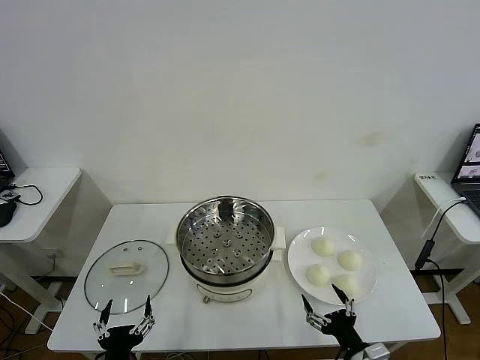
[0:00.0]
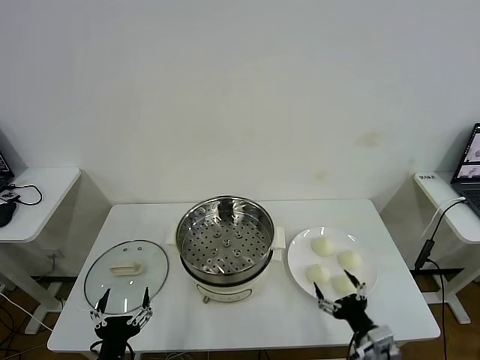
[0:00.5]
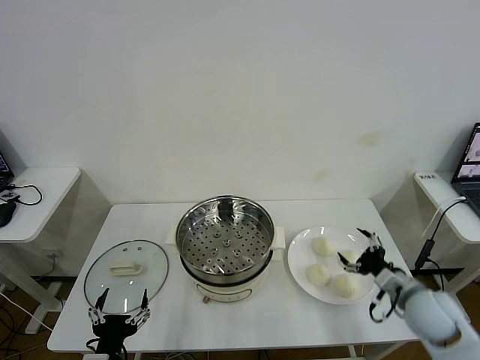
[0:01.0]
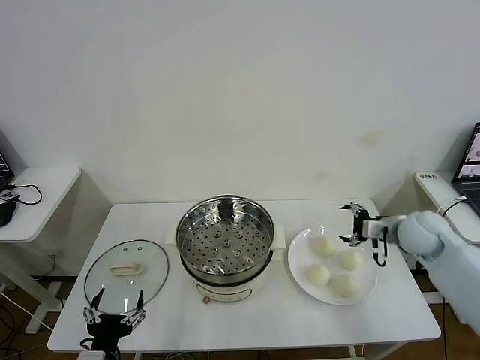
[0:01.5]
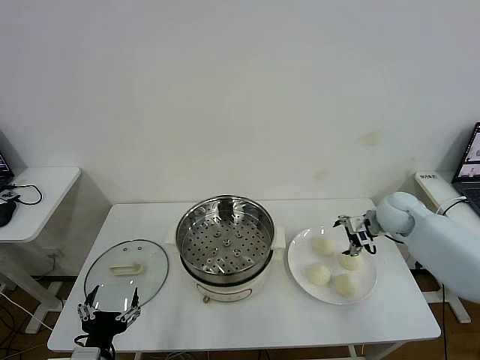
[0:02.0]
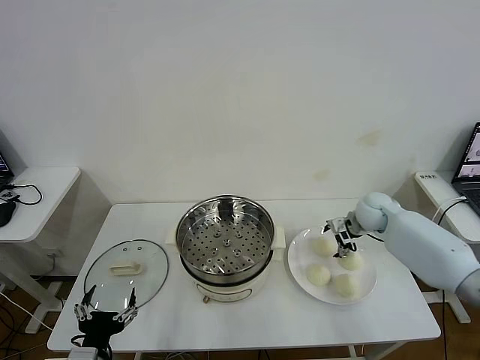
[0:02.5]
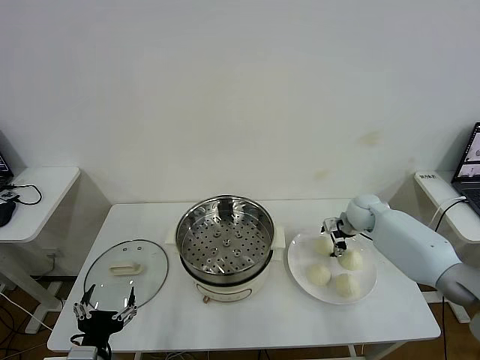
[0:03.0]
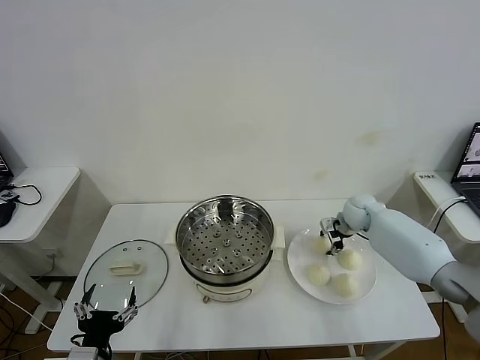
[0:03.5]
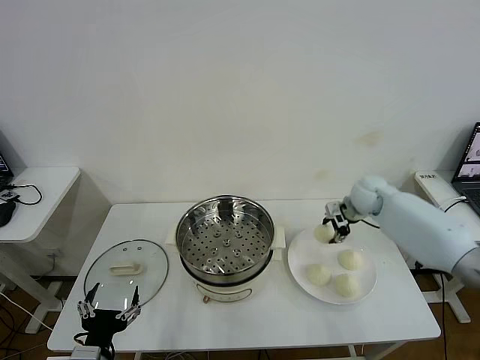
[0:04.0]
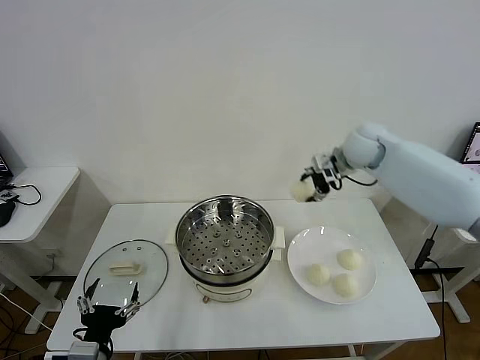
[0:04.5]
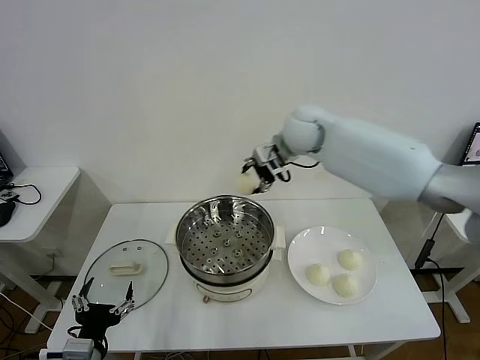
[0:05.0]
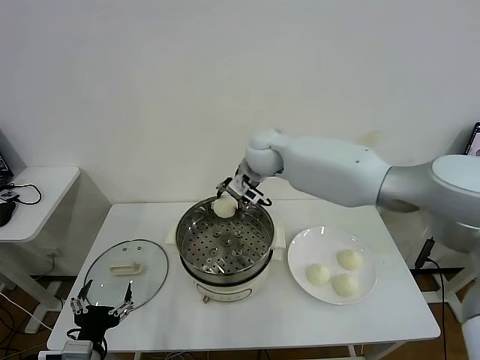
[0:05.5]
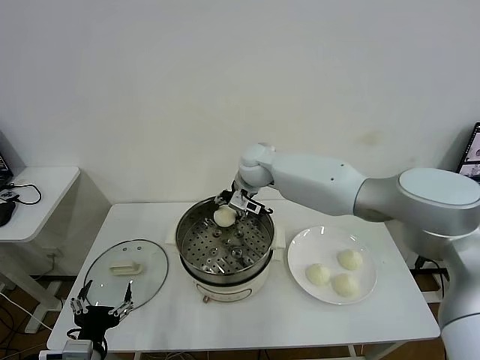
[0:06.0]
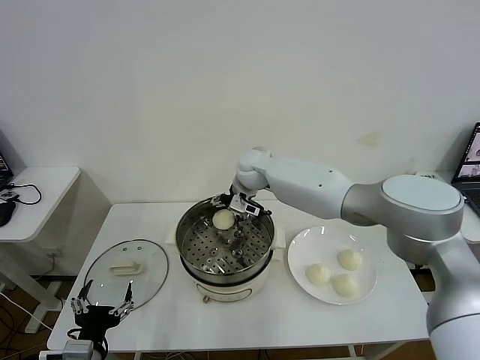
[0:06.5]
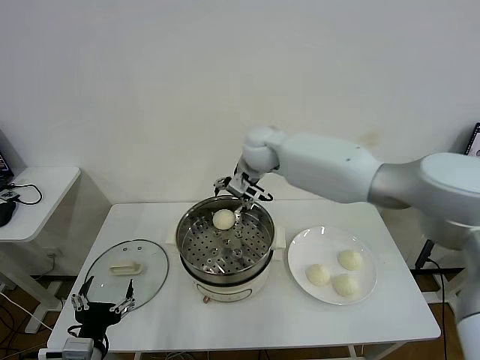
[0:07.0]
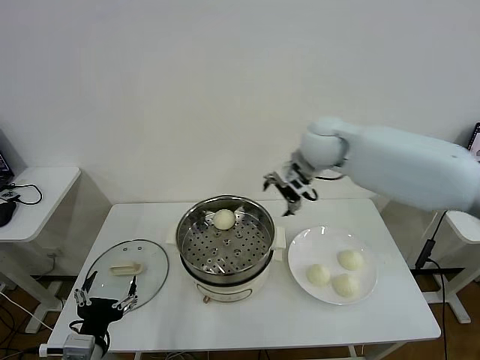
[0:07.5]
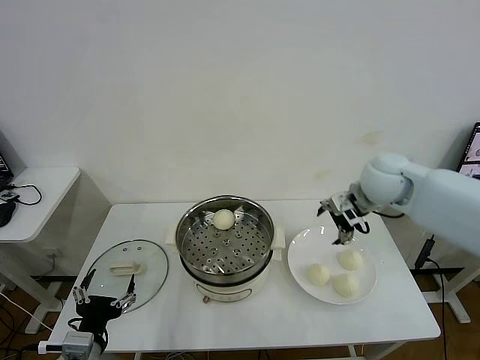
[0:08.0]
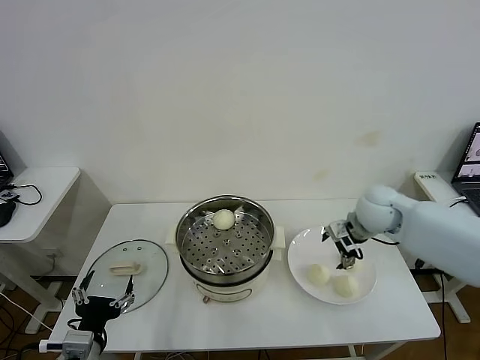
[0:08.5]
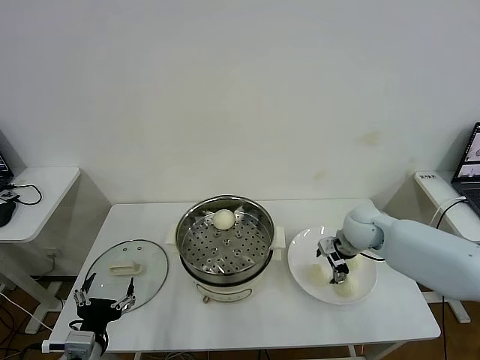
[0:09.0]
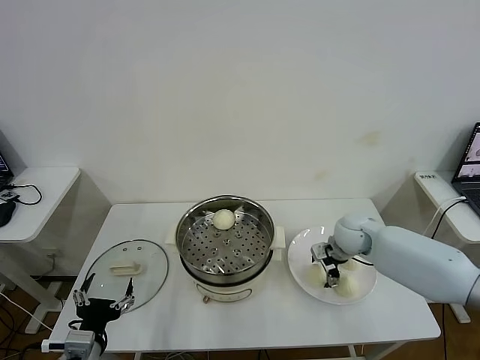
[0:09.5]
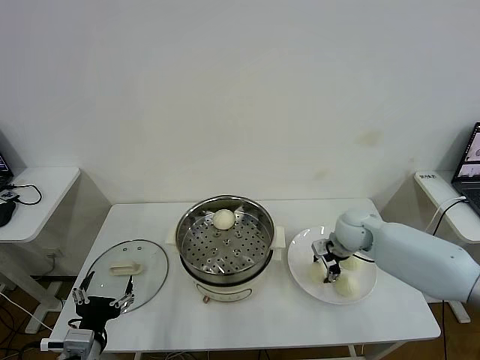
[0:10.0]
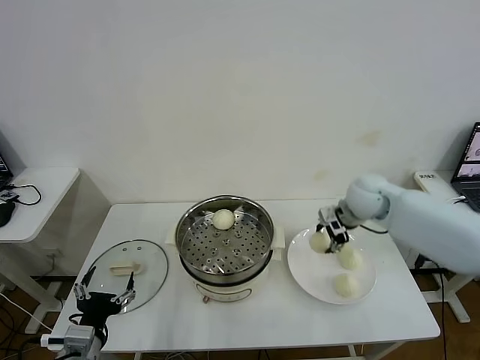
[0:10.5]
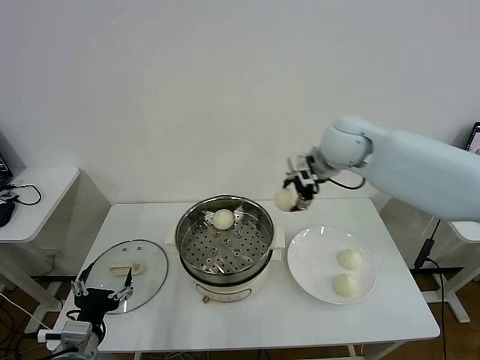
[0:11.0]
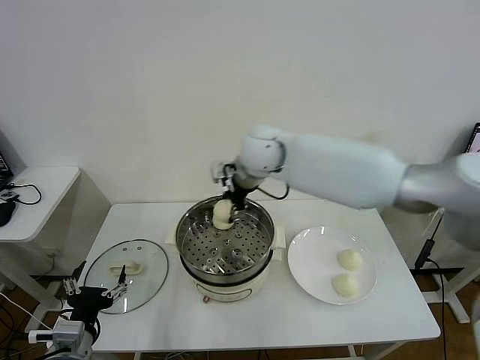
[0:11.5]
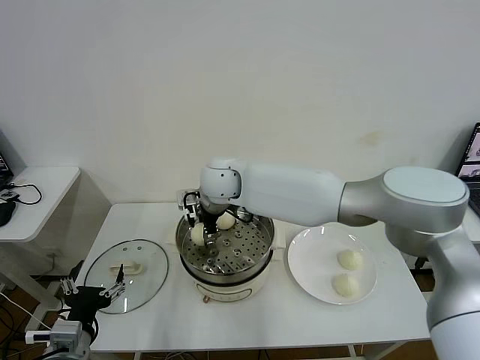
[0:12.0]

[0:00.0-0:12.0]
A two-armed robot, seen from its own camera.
Task of the whole recording: take steamed baozi put them in steamer then cover it.
Step, 0:00.0 to 0:03.5: Grasp the baozi in the plate with right gripper.
Step, 0:04.0 to 0:06.5: Place the baozi on the steamer with right gripper.
Step, 0:07.0 to 0:09.5: Grasp the baozi in the plate with right gripper.
0:02.0 to 0:04.0: The right gripper goes approximately 10 cm upward and forward, and closes.
0:04.0 to 0:06.0: The right gripper is displaced to the left by some 30 cm.
0:06.0 to 0:08.0: The right gripper travels to the right and backward by about 30 cm, and opens.
0:08.0 to 0:10.0: The right gripper shifts about 15 cm downward, and closes its fingers.
0:10.0 to 0:12.0: The right gripper travels to the left by approximately 35 cm.

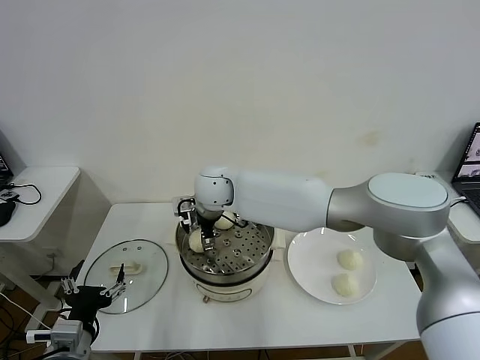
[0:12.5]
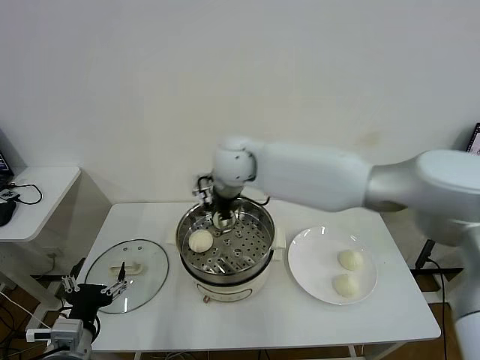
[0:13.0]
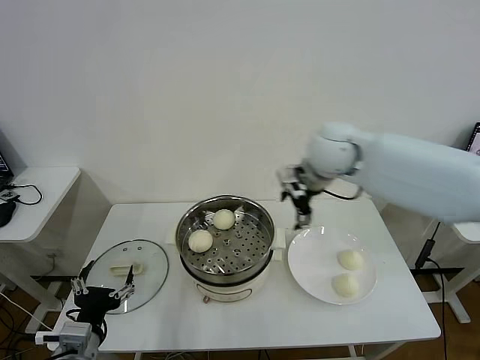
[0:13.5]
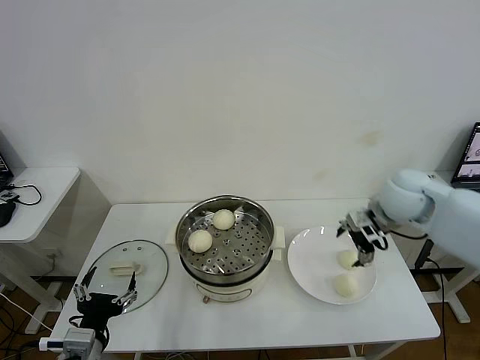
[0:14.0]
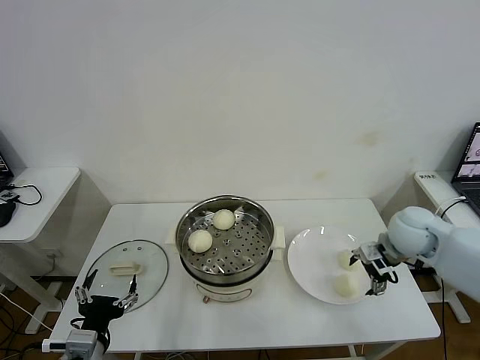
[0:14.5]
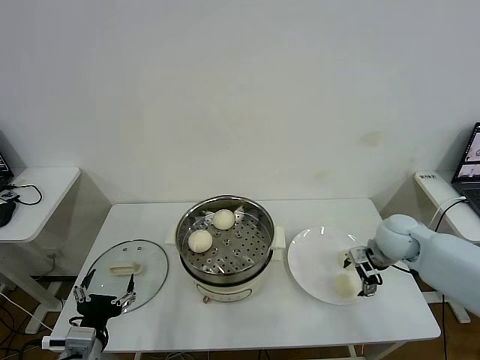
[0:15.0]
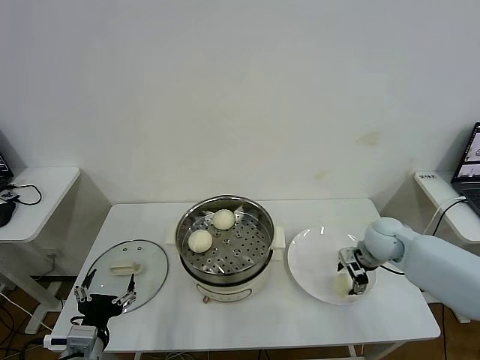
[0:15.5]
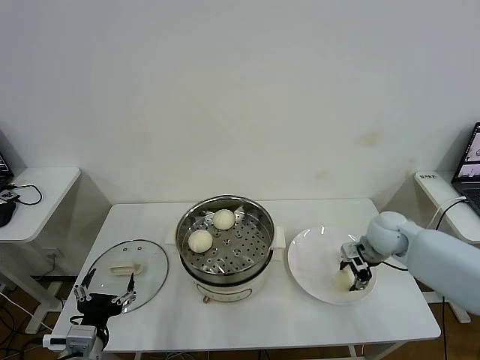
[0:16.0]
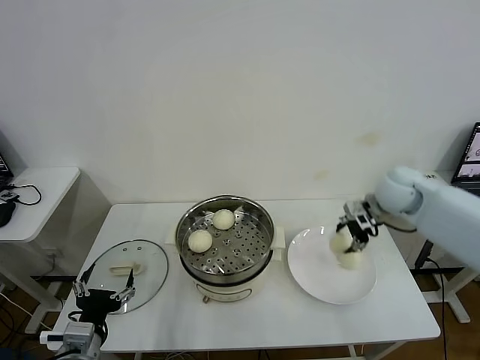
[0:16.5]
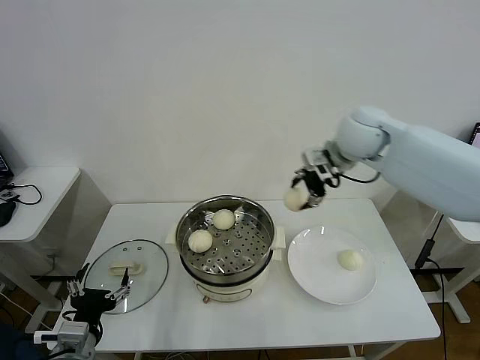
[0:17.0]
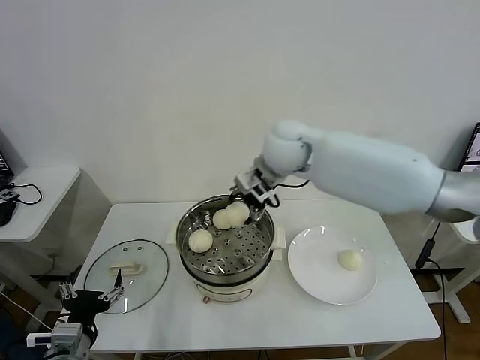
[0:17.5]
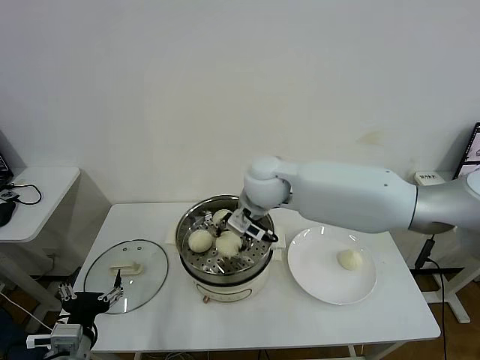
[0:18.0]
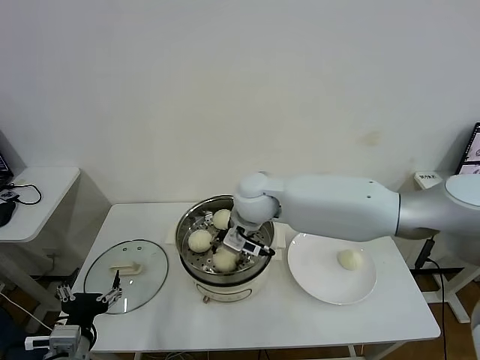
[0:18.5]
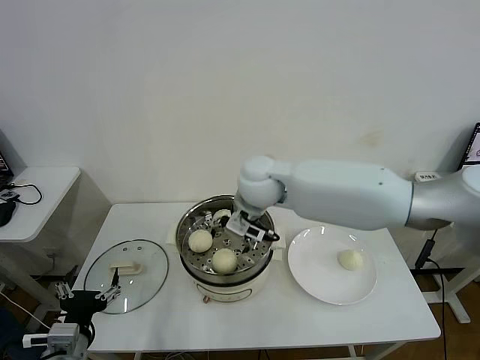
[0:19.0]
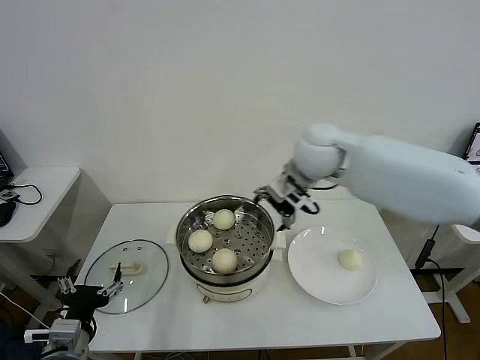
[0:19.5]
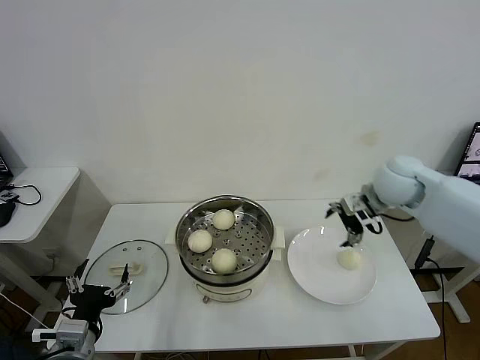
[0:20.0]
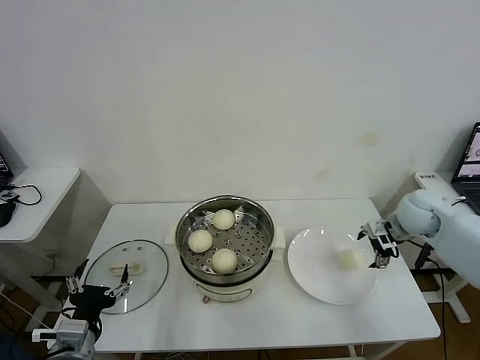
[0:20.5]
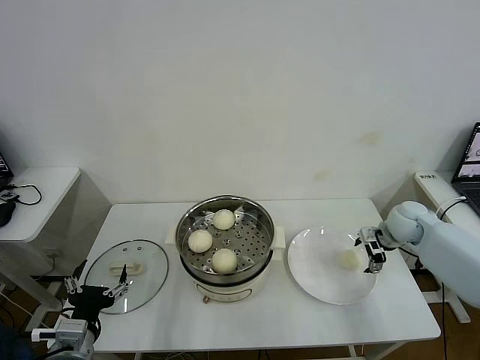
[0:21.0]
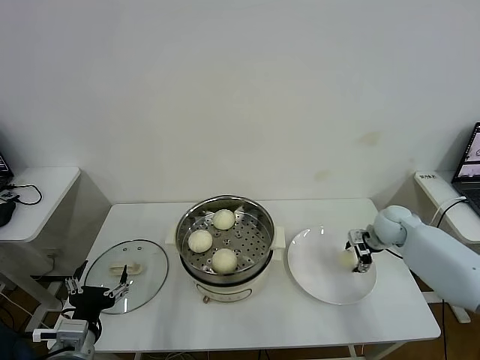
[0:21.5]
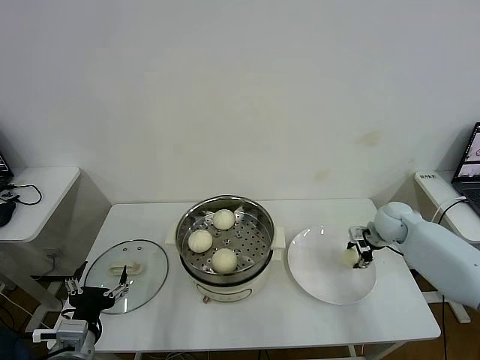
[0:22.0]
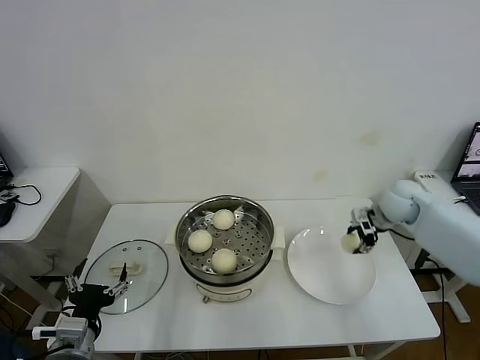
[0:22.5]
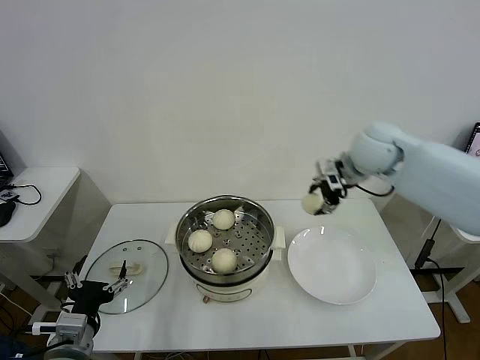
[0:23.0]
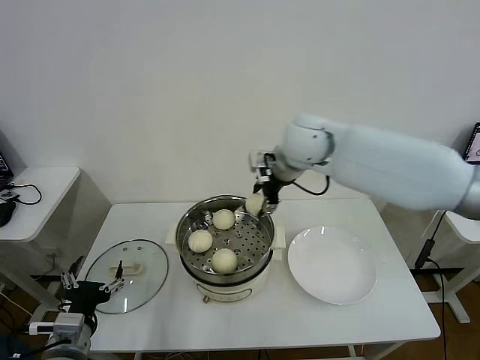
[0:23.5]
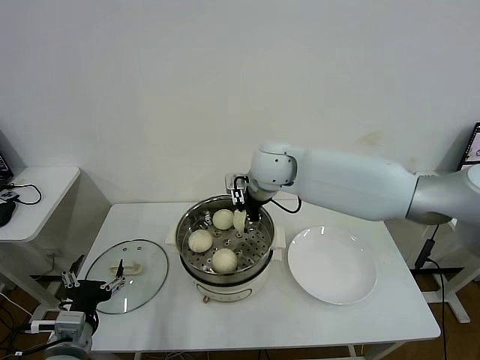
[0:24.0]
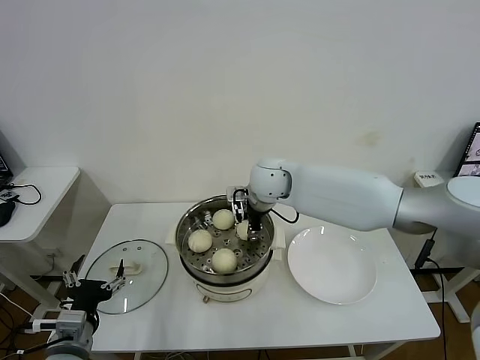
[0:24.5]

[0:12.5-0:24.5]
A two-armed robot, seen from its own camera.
Task of the whole recording: take steamed baozi put them in steamer then cover it.
Step, 0:13.0 to 0:15.5: Grasp the baozi in the plate with right gripper.
Step, 0:16.0 to 0:18.5: Place the baozi on the steamer with right gripper.
Step, 0:19.5 to 0:21.5: Grasp the baozi in the plate with right gripper.
0:12.5 to 0:14.5: The right gripper shifts about 40 cm to the right.
0:14.5 to 0:16.5: The right gripper travels upward and forward by roughly 10 cm, and closes its fingers.
0:16.5 to 0:18.5: The right gripper shifts roughly 30 cm to the left.
0:18.5 to 0:20.5: The right gripper travels to the right by roughly 40 cm, and opens.
0:20.5 to 0:22.5: The right gripper reaches approximately 10 cm downward, then returns, and closes up.
0:22.5 to 0:24.5: The right gripper heads to the left, covering roughly 30 cm.

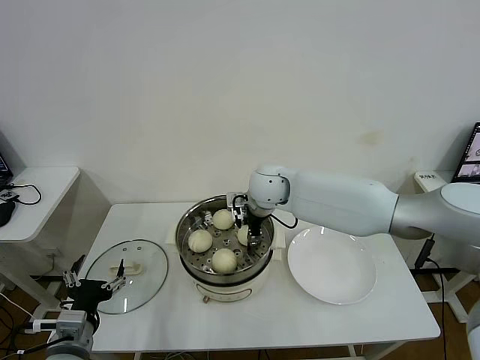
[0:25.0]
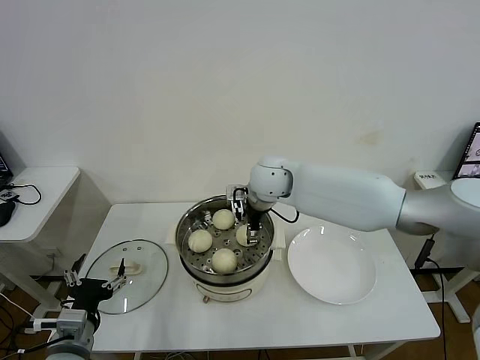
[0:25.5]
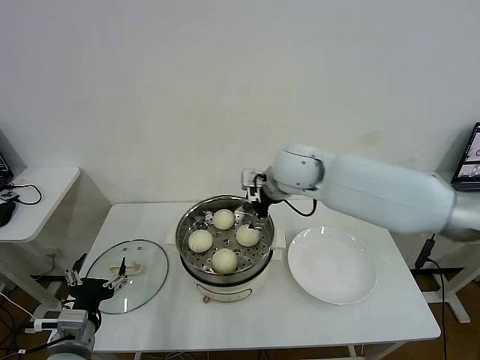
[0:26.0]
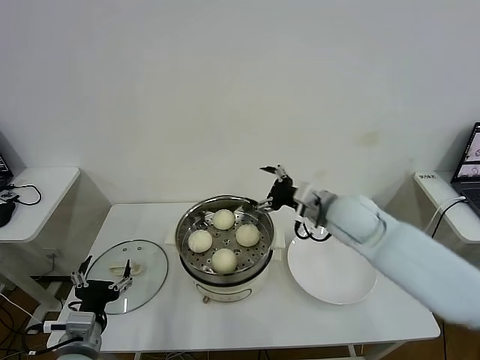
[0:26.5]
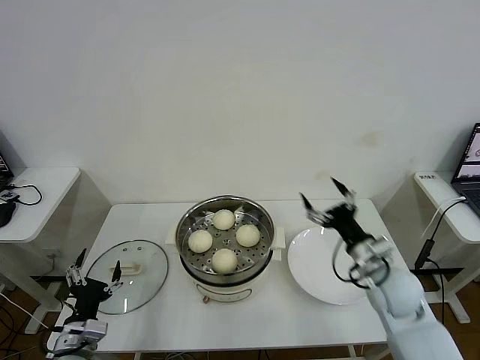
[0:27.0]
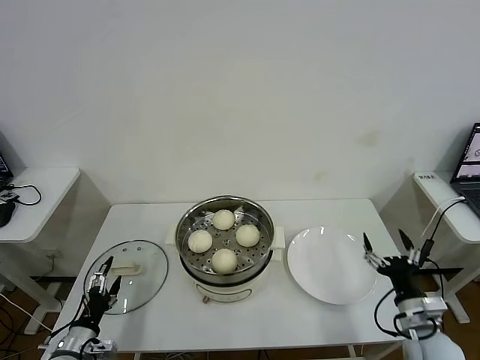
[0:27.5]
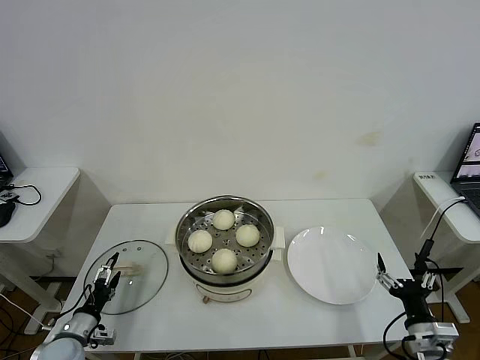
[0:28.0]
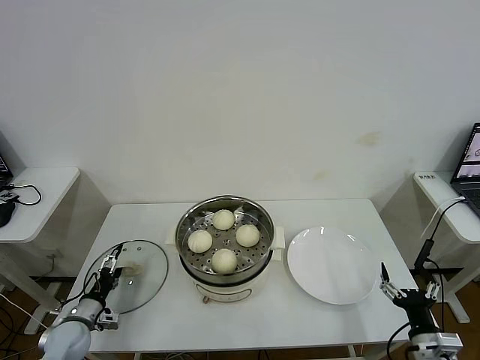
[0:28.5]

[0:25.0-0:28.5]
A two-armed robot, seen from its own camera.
Task of the whole recording: take steamed baozi put them in steamer then cover it.
0:25.0 to 0:27.0: The left gripper changes place by about 5 cm. The right gripper travels to the right, backward and downward by about 35 cm, and opens.
0:27.0 to 0:28.5: The right gripper moves backward, downward and to the right, some 20 cm; the left gripper is displaced downward, forward and to the left by some 15 cm.
